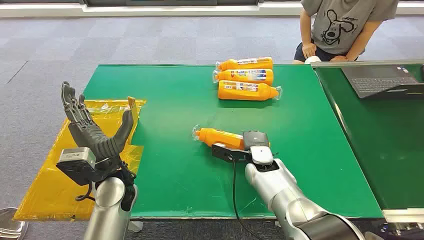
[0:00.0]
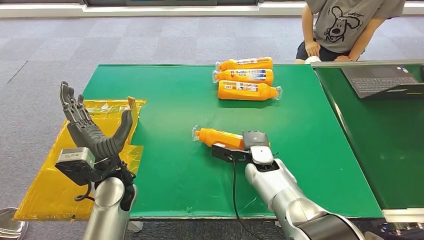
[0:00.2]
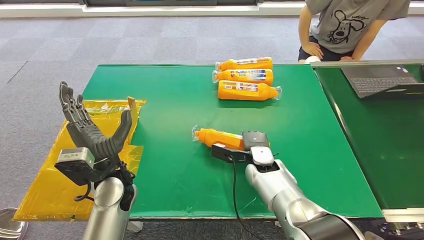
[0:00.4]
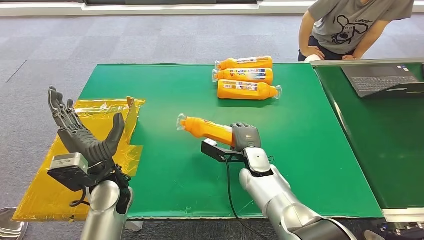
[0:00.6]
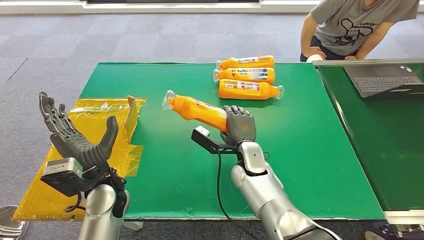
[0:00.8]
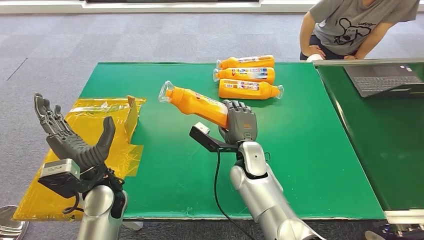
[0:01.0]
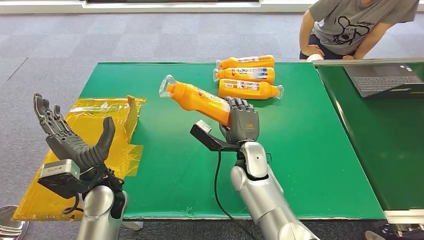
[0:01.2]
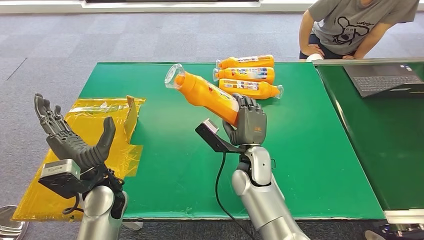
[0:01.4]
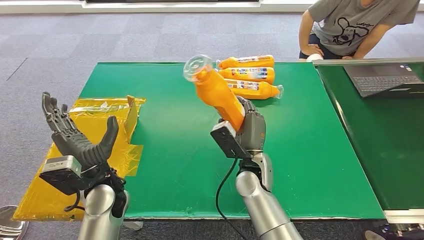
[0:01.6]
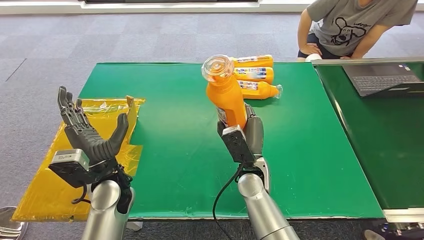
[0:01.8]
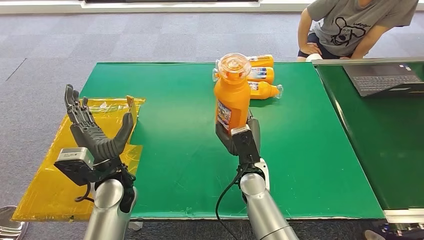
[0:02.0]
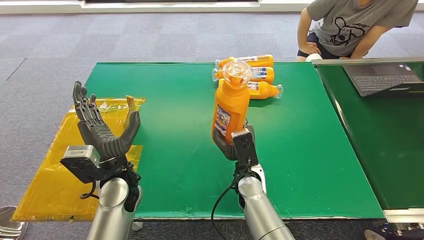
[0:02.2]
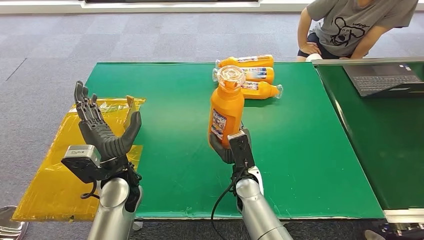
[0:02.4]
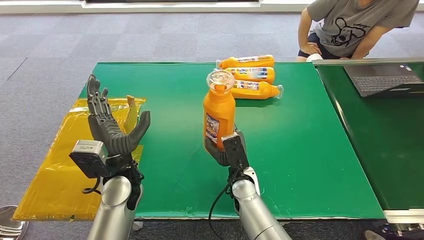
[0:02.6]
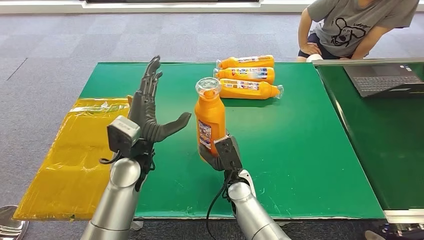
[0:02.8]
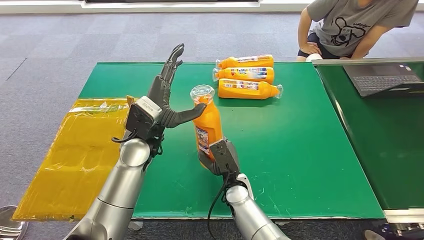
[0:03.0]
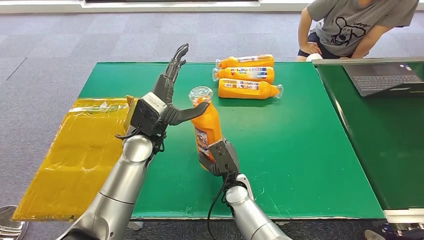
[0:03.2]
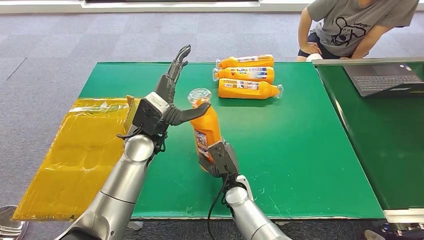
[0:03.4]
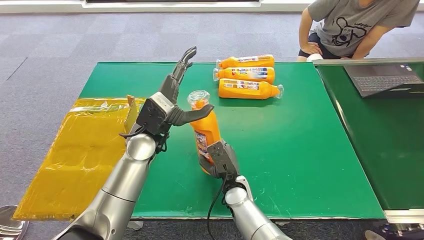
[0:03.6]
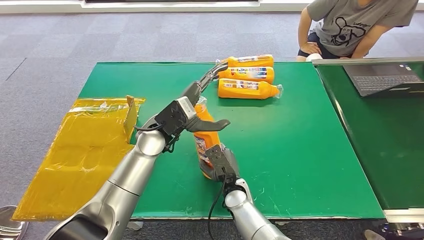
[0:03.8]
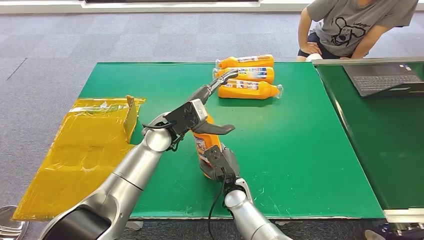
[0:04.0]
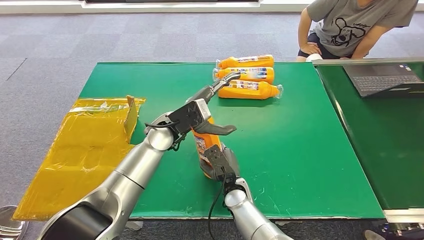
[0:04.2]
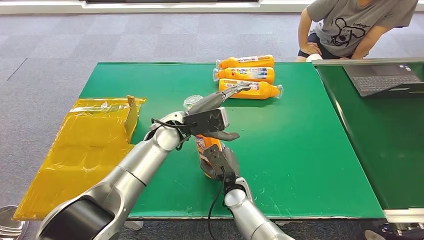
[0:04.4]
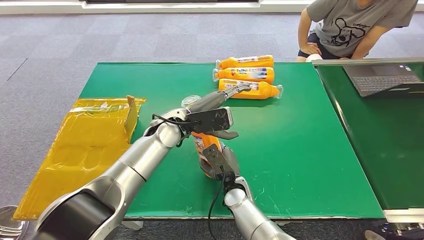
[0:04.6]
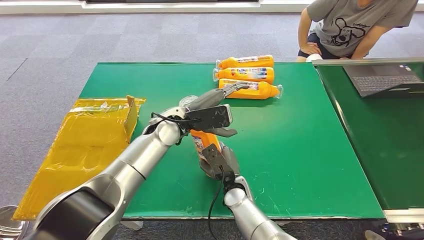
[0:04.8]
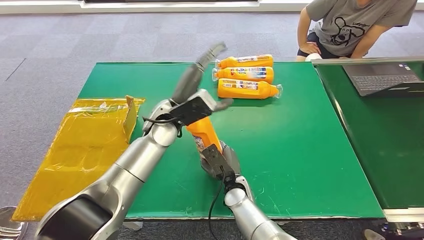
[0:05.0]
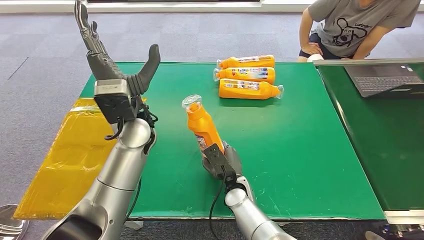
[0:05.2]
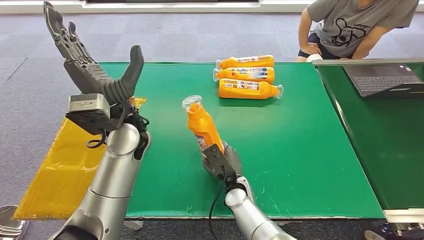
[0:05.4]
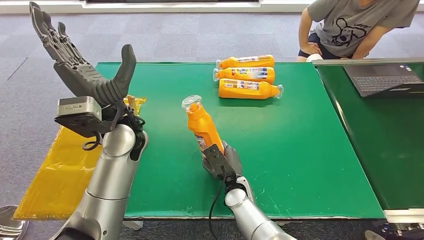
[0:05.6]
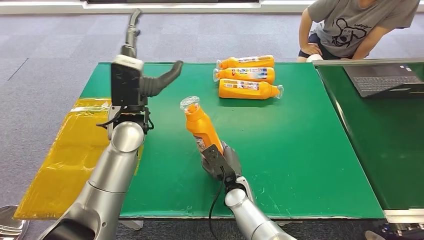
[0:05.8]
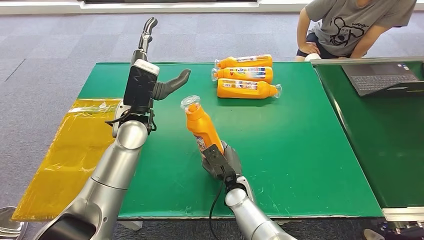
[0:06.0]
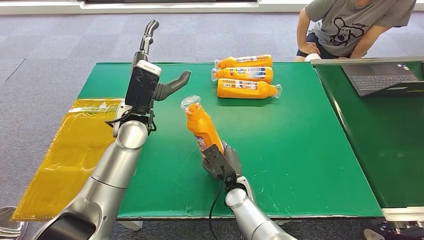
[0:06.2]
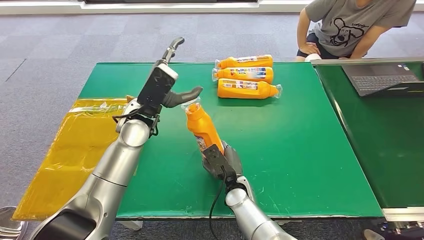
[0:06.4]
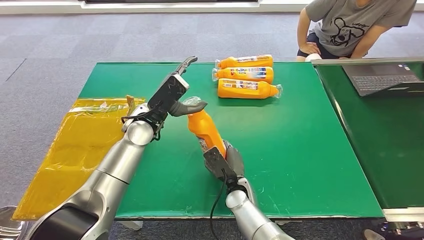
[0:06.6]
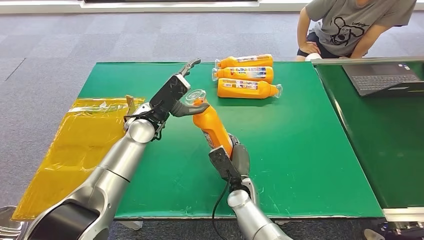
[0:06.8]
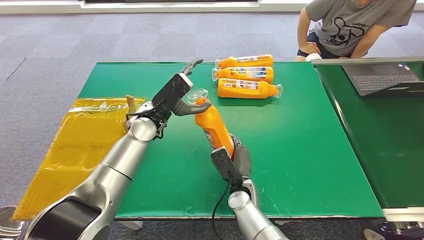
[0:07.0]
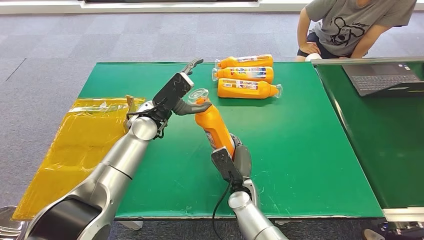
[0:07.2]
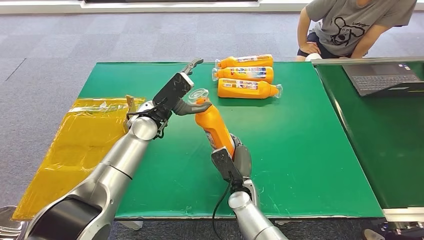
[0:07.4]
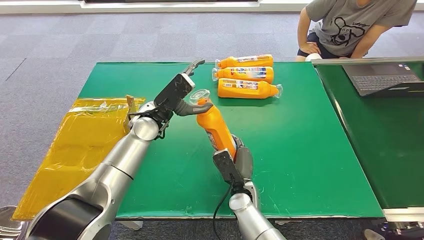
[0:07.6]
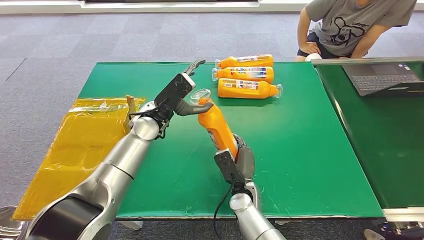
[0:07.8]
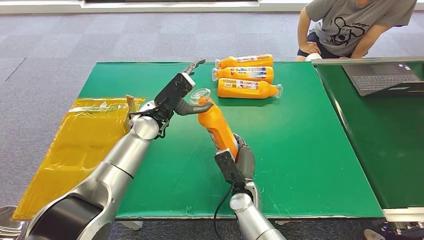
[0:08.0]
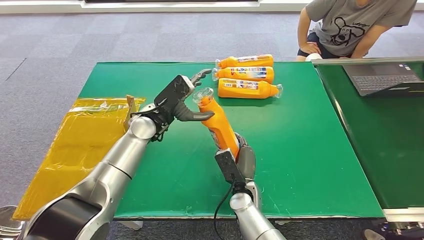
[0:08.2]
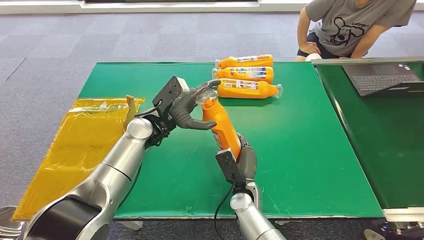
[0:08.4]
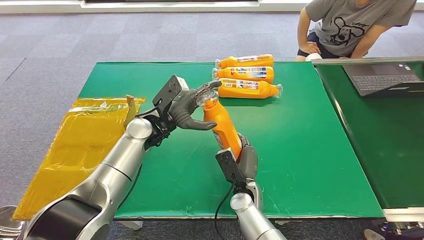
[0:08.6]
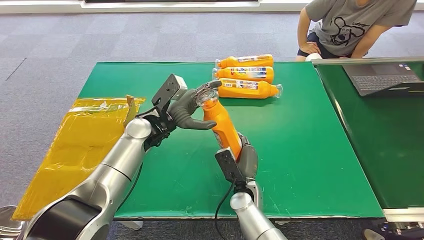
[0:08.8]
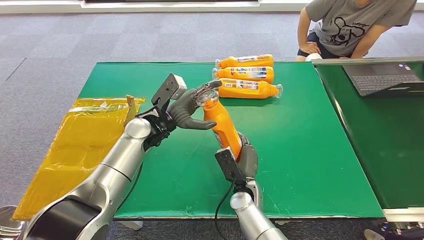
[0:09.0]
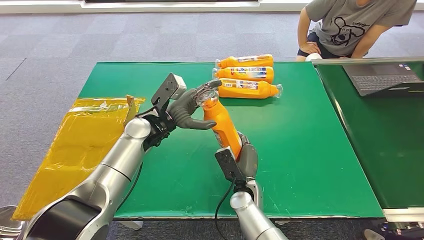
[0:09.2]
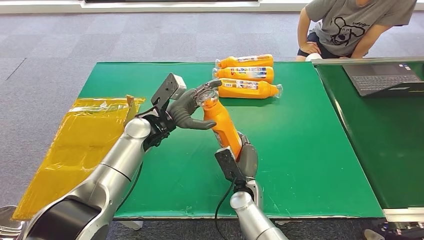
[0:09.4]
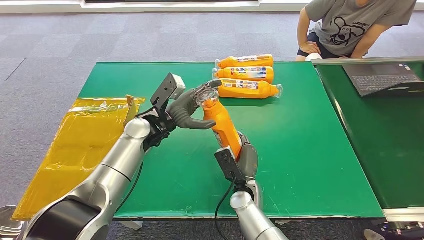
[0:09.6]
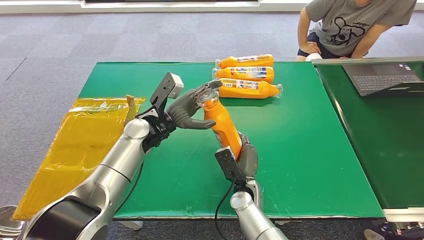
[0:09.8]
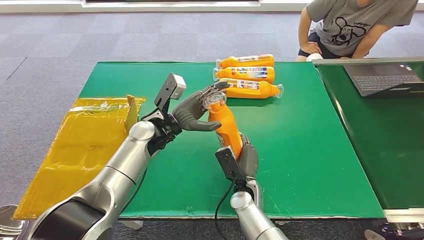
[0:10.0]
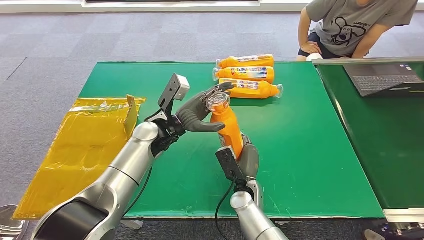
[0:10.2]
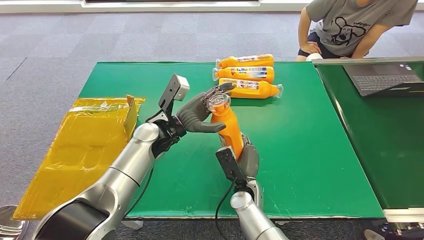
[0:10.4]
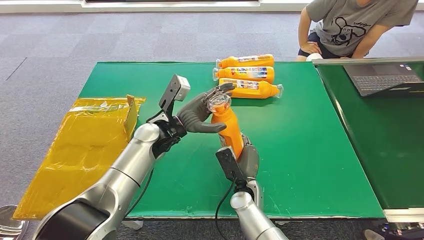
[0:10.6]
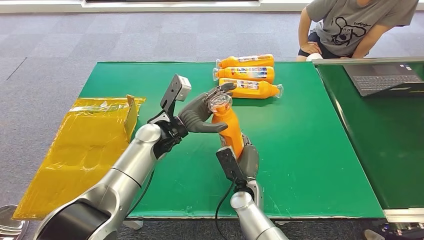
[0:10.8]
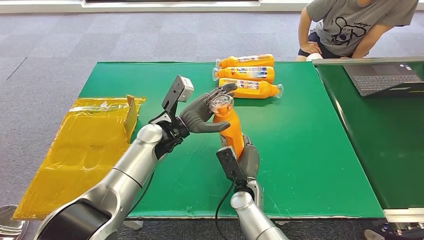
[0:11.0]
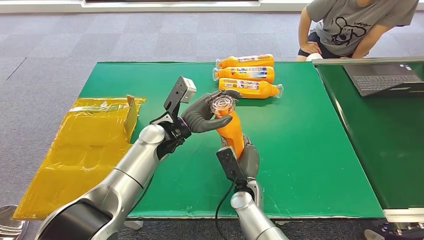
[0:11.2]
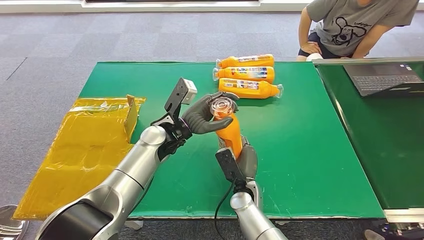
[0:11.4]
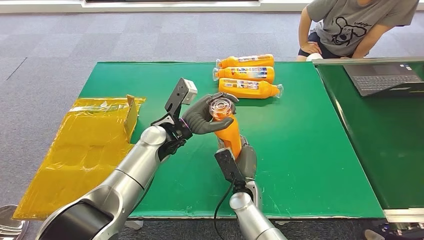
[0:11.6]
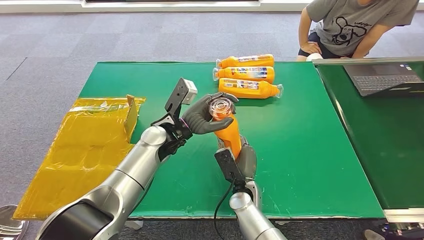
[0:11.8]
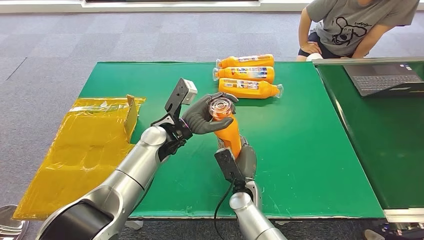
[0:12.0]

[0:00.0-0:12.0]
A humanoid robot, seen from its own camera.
Step, 0:00.0 to 0:01.2: Pick up the bottle from the table.
0:03.0 to 0:04.4: The left hand ends up roughly 5 cm from where it was.
0:04.4 to 0:06.0: The left hand shifts approximately 5 cm to the left.
0:06.0 to 0:07.6: The left hand shifts roughly 5 cm downward.
0:09.0 to 0:12.0: The hands stay close to where they were, moving slightly.

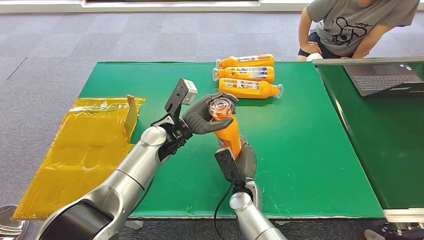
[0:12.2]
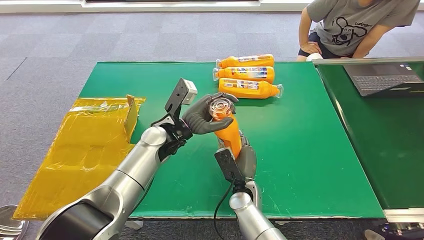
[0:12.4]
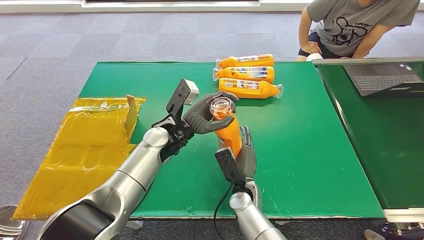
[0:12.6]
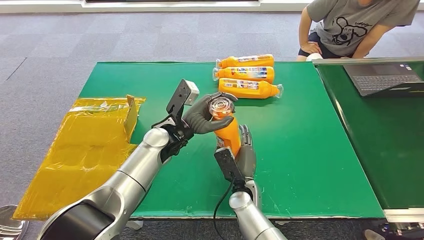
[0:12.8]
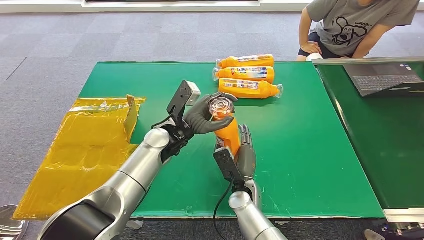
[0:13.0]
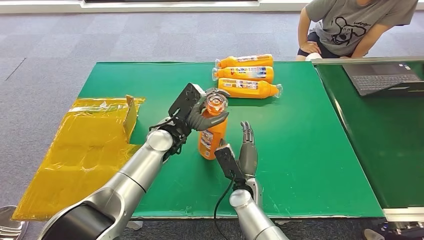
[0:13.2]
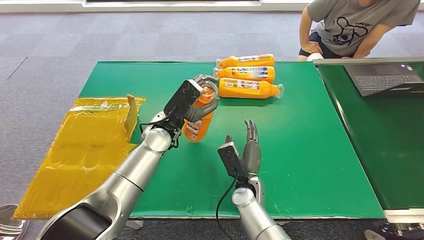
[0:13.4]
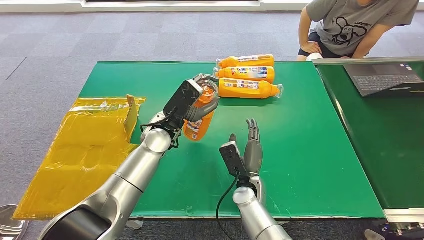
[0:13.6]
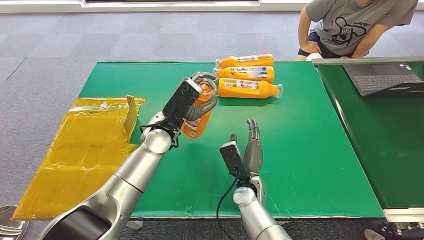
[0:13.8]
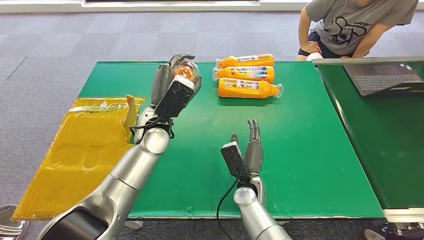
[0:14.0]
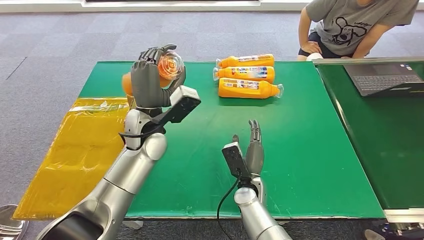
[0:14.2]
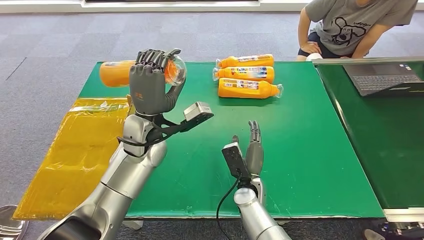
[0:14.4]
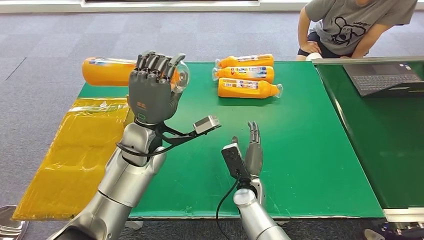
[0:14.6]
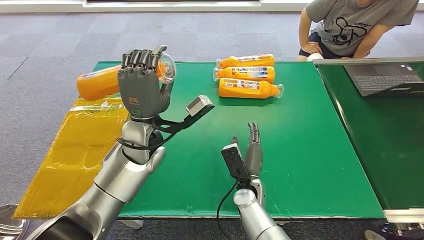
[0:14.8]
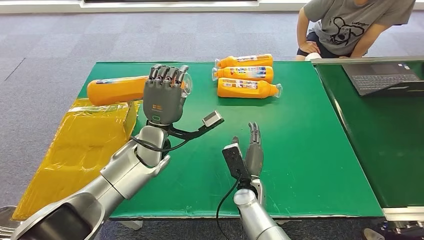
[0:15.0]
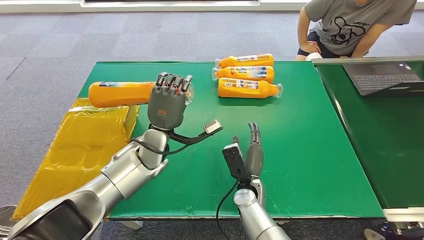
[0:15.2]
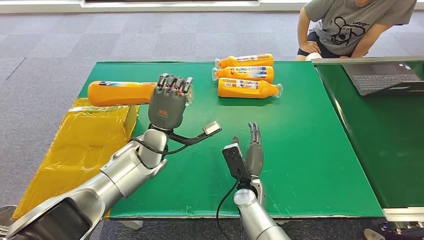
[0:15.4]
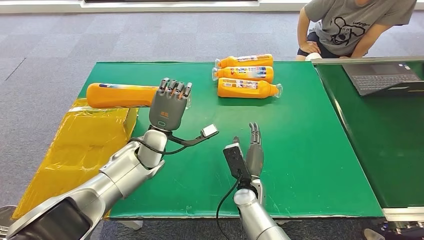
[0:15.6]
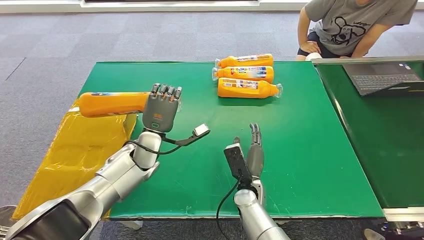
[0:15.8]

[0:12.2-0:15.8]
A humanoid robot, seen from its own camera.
Step, 0:12.2 to 0:15.8: Turn the bottle to the front side.
0:14.0 to 0:15.8: The left hand heads downward and to the left, covering about 10 cm.

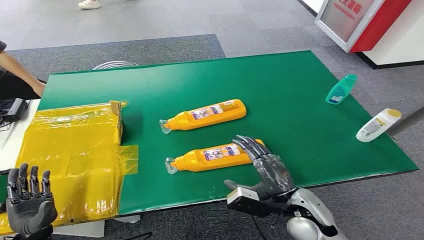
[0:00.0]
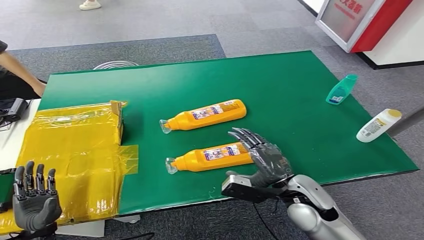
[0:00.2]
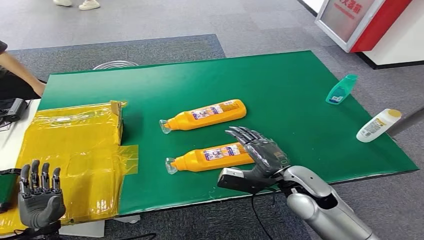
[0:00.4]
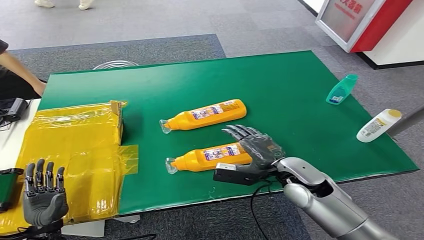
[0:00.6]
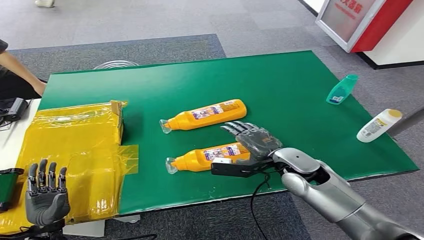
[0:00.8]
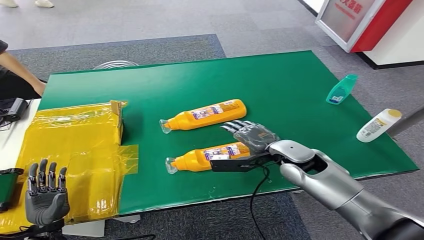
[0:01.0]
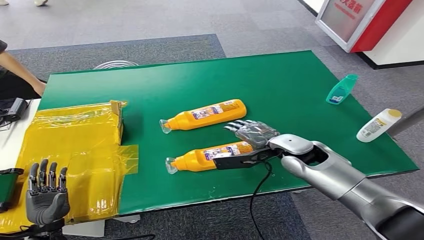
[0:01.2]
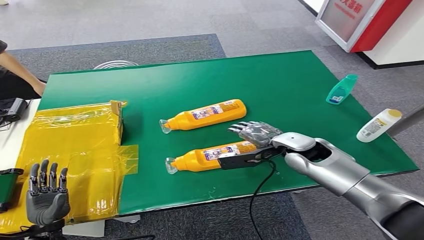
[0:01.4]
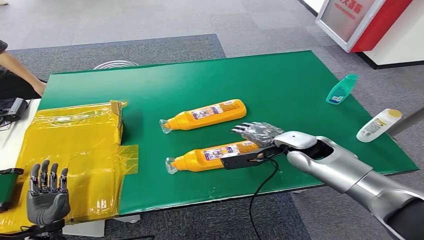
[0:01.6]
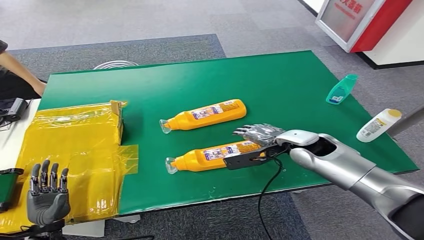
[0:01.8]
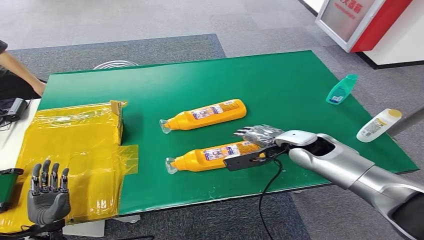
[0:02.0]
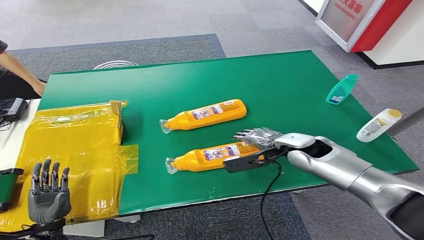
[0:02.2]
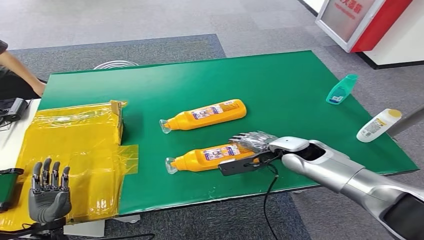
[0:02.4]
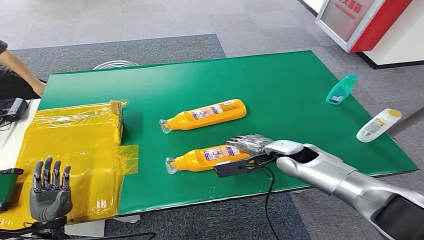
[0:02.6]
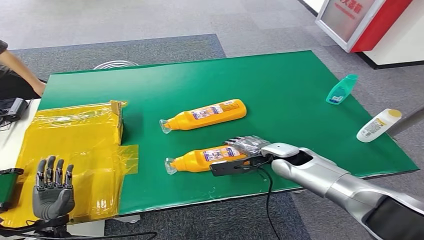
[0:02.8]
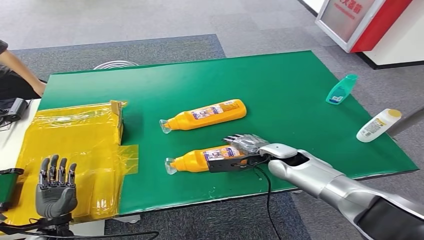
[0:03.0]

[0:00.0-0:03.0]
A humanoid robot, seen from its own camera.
0:01.6 to 0:03.0: The right hand is displaced downward by about 5 cm.
